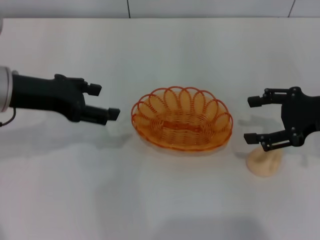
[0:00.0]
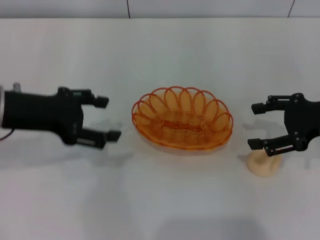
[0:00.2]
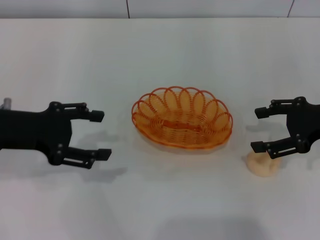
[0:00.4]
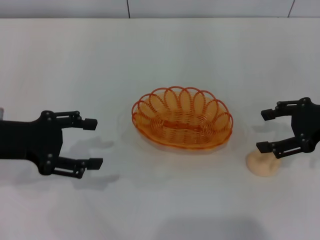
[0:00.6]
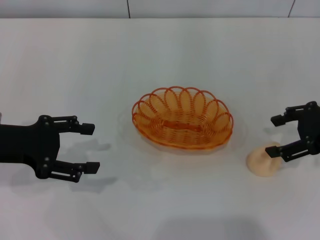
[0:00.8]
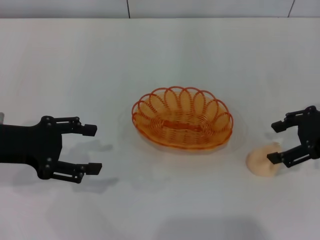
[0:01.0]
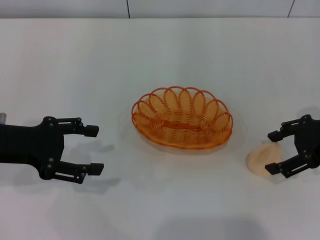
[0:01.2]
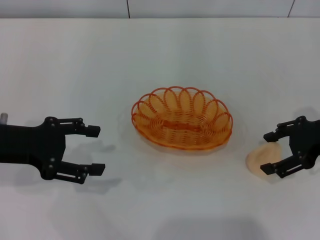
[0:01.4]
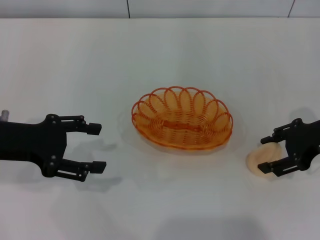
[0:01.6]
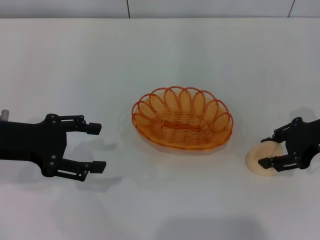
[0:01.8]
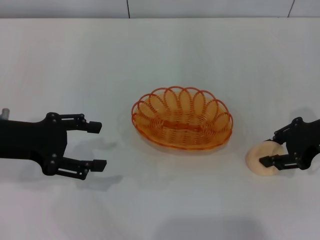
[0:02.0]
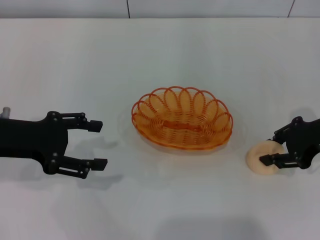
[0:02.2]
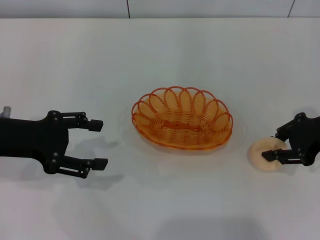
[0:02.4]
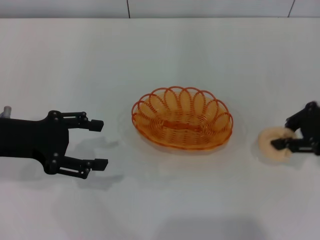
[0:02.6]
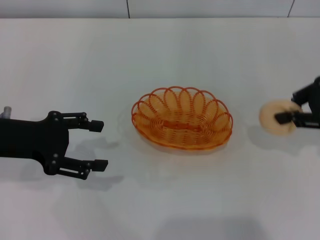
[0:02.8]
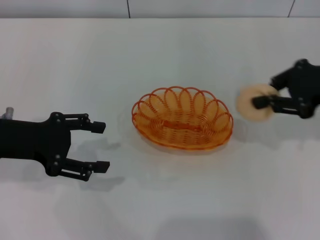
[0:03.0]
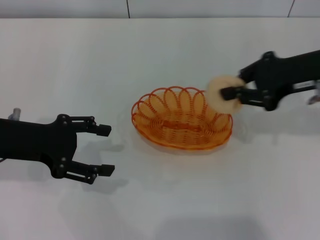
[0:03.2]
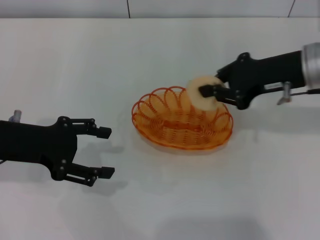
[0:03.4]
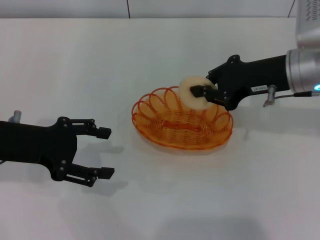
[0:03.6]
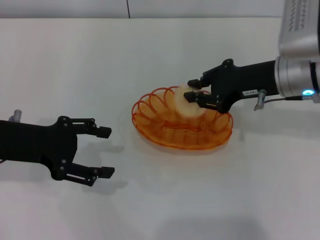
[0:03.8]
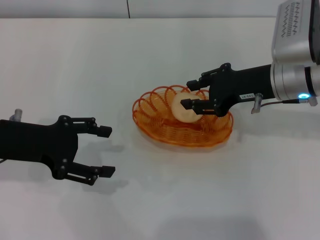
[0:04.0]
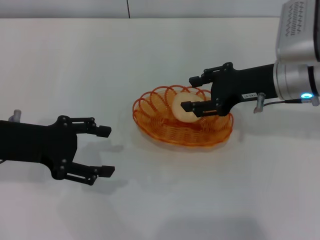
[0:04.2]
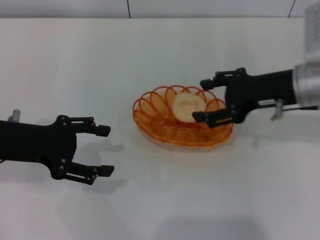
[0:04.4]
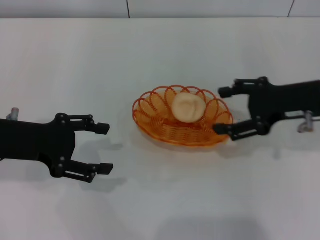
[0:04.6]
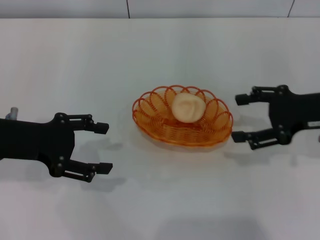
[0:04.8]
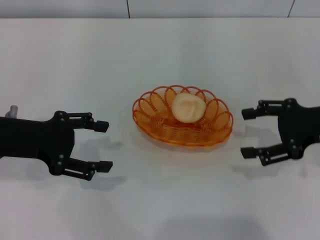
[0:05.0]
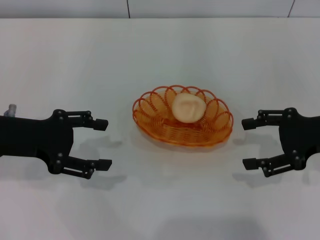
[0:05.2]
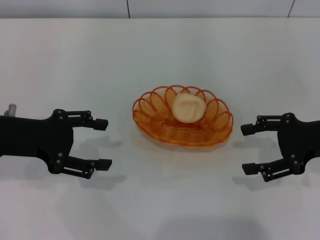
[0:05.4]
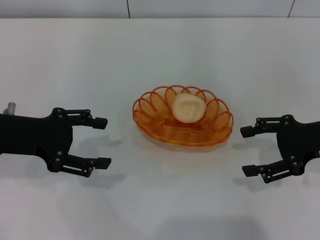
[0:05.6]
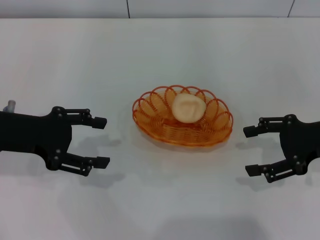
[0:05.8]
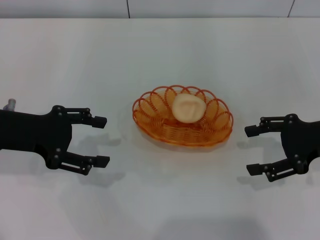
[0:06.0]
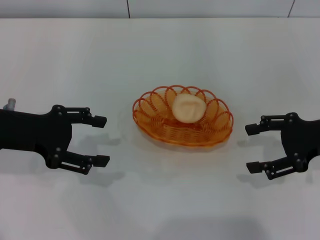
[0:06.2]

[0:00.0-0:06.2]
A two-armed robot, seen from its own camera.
Step, 0:00.4 to 0:02.6: Pick up the egg yolk pastry with the right gripper.
Step, 0:02.8 to 0:04.6: Place the egg yolk pastry into the basket with the right gripper.
0:00.0 to 0:01.6: The left gripper shifts by roughly 5 cm.
0:01.6 to 0:03.2: The right gripper travels upward by about 5 cm, and closes up.
0:03.2 to 0:04.6: The right gripper opens.
0:04.6 to 0:06.2: The right gripper shifts by approximately 5 cm.
